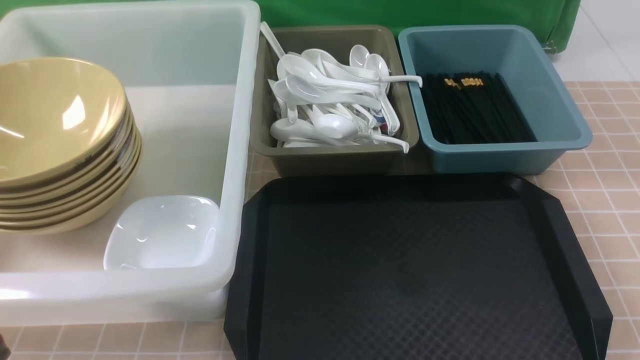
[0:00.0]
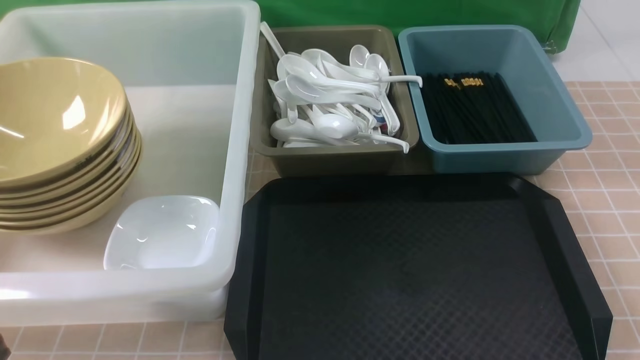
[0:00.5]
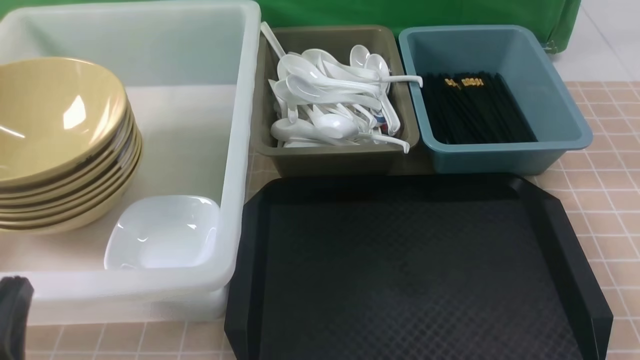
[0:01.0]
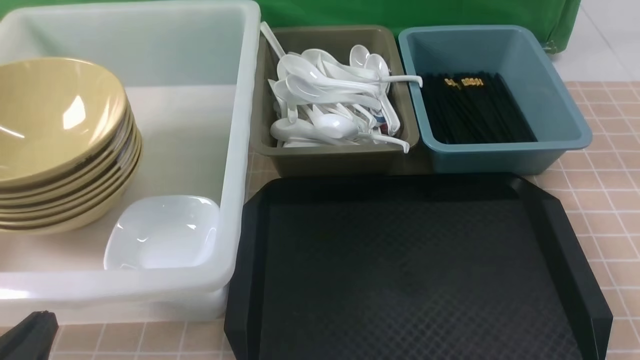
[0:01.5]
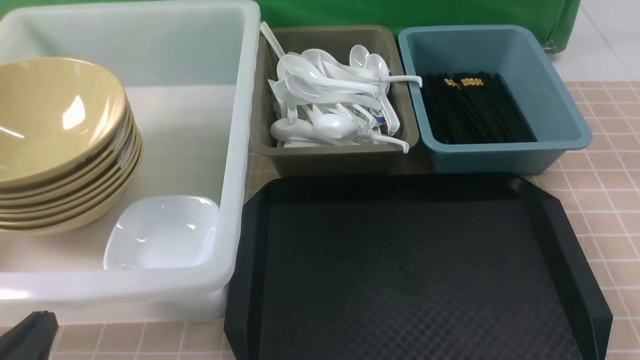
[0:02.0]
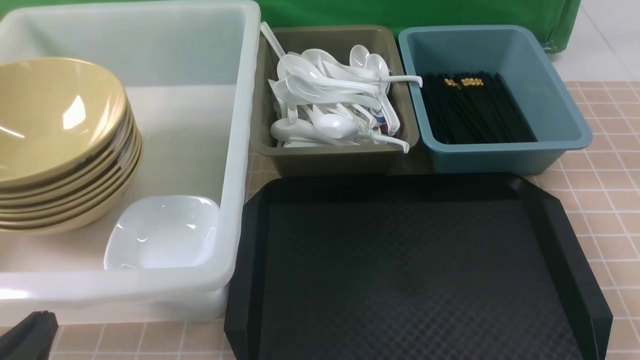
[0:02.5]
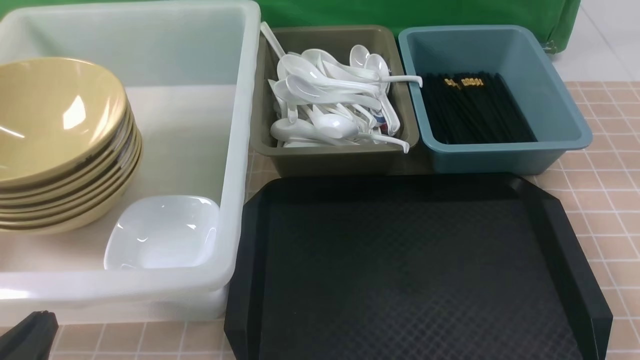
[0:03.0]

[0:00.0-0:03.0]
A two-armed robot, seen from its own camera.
Task of the whole recording: on brown table put chopsticks spoon bowls plates into blue grey white boxes.
0:00.0 to 0:01.5: The left gripper moves downward, about 10 cm.
0:01.5 to 0:03.0: Both grippers stay about where they are.

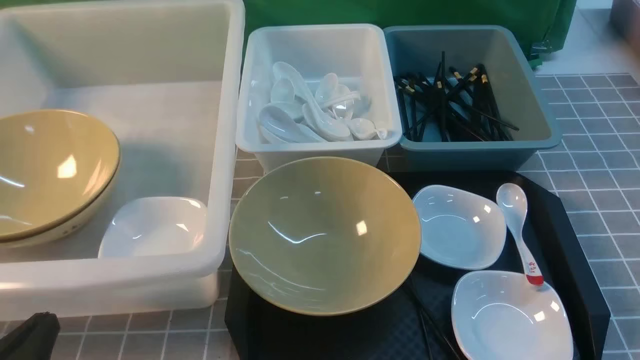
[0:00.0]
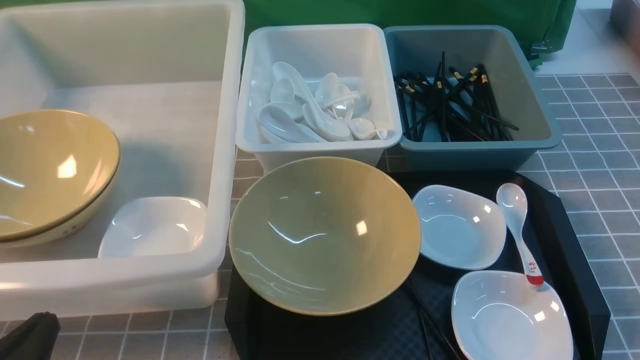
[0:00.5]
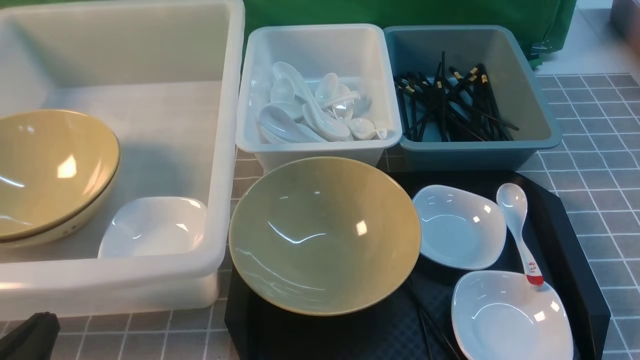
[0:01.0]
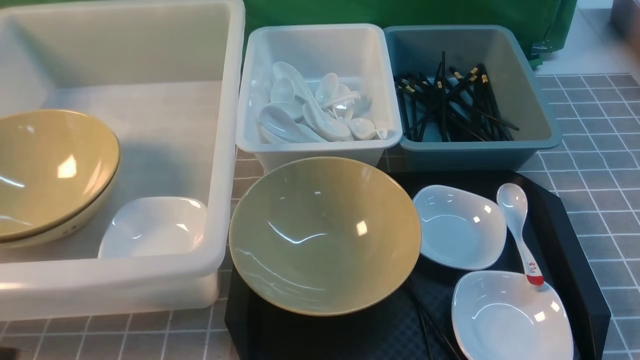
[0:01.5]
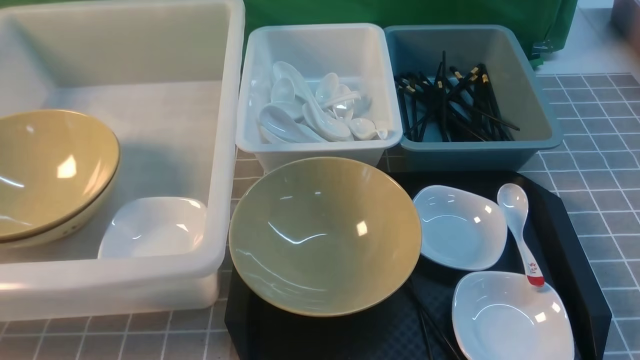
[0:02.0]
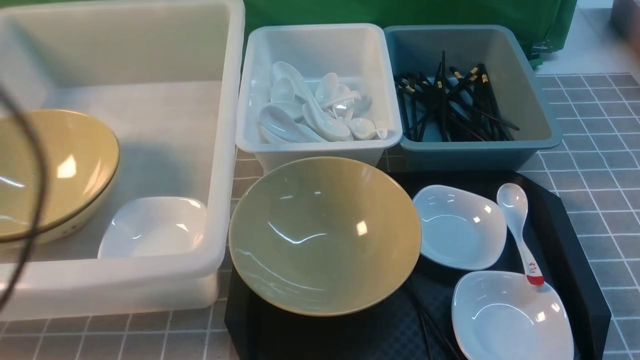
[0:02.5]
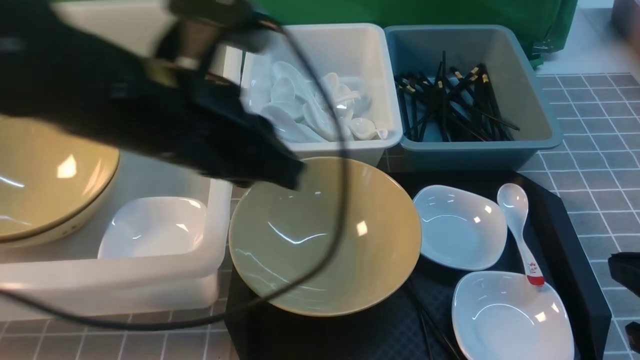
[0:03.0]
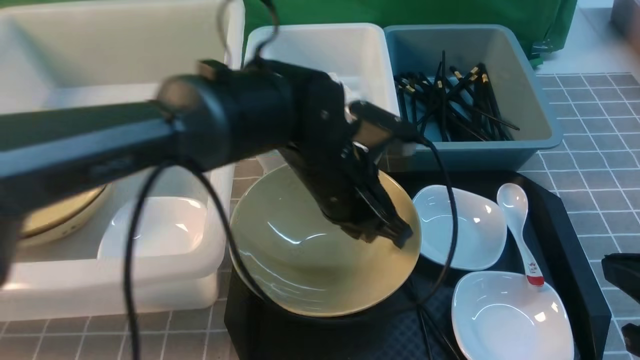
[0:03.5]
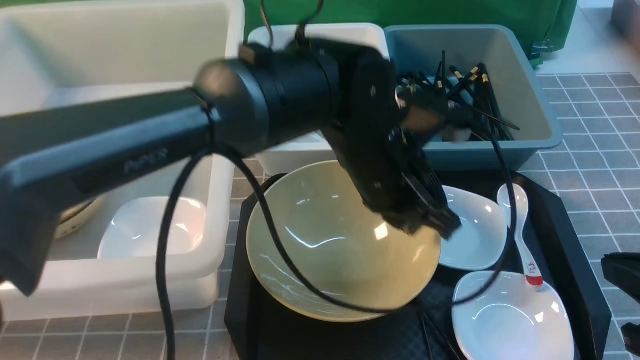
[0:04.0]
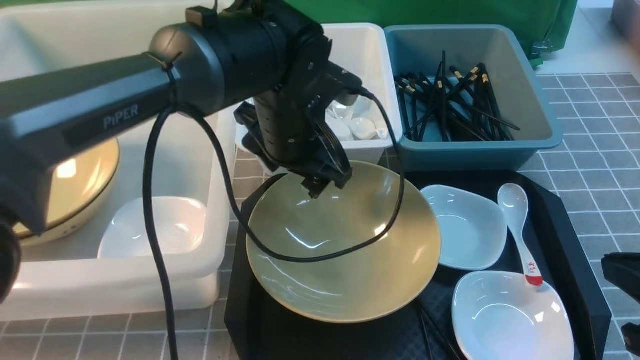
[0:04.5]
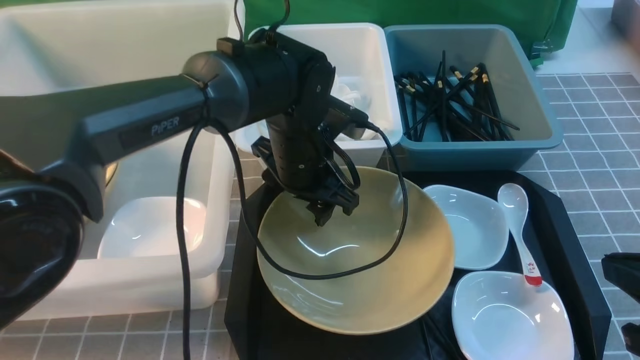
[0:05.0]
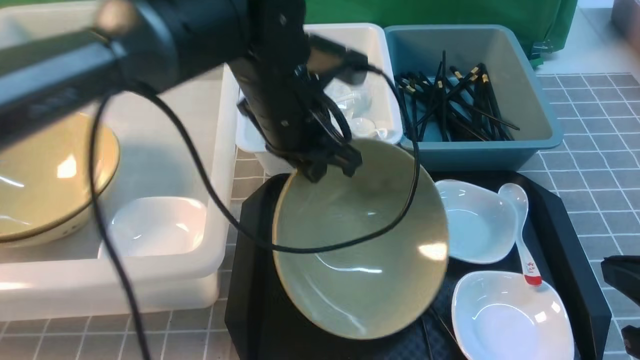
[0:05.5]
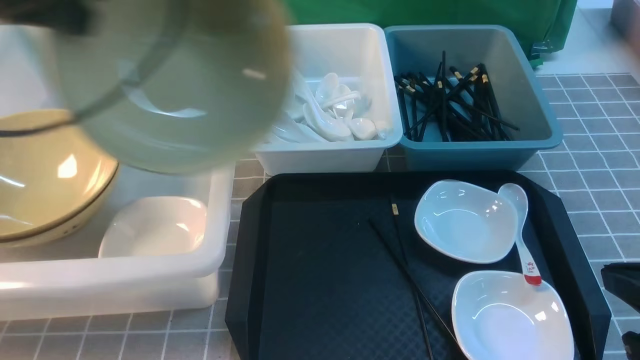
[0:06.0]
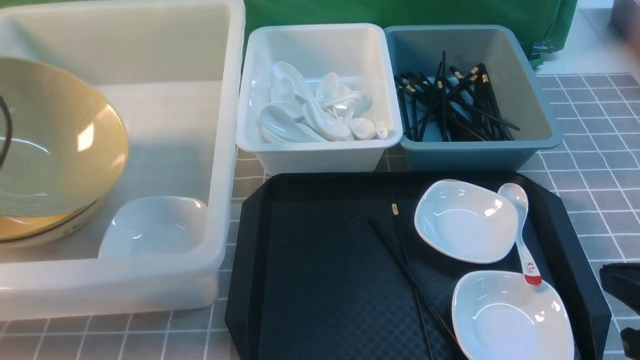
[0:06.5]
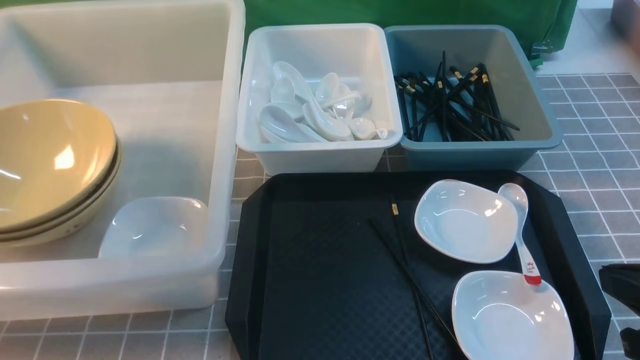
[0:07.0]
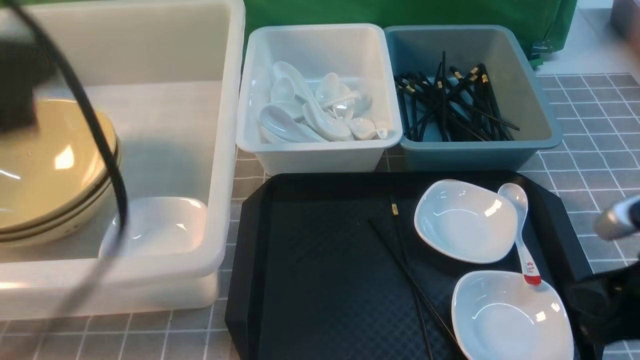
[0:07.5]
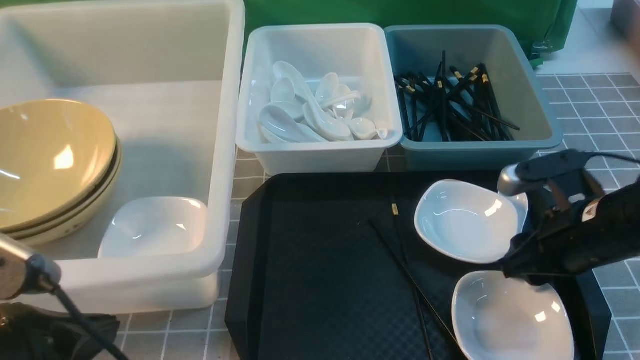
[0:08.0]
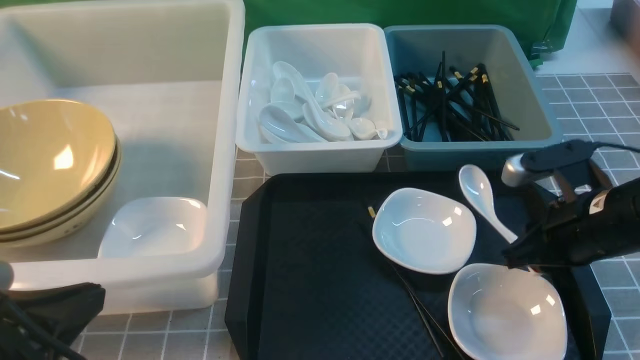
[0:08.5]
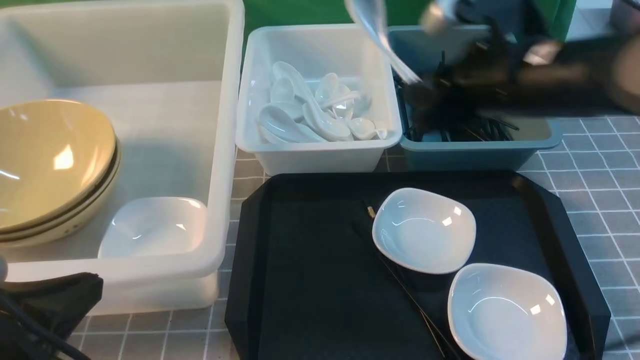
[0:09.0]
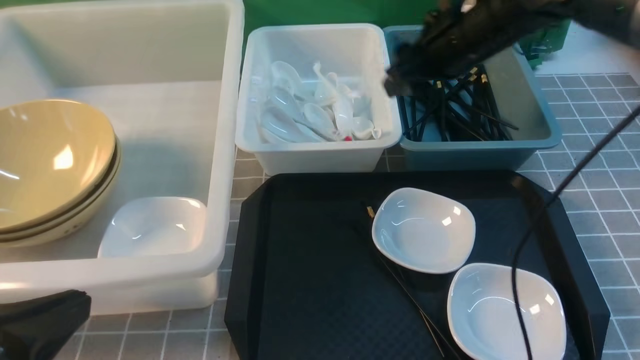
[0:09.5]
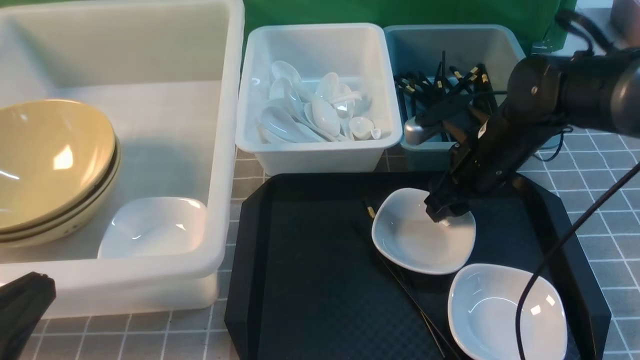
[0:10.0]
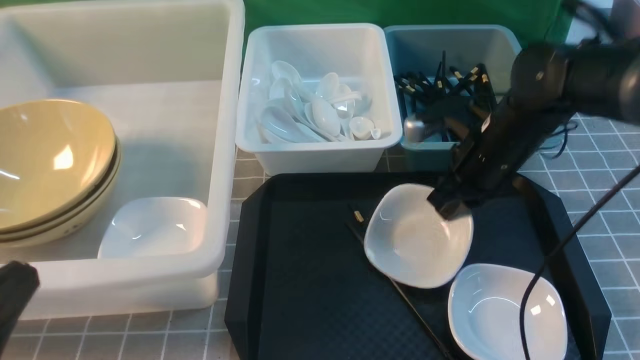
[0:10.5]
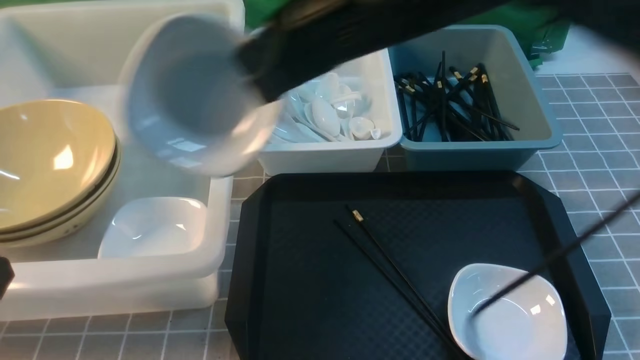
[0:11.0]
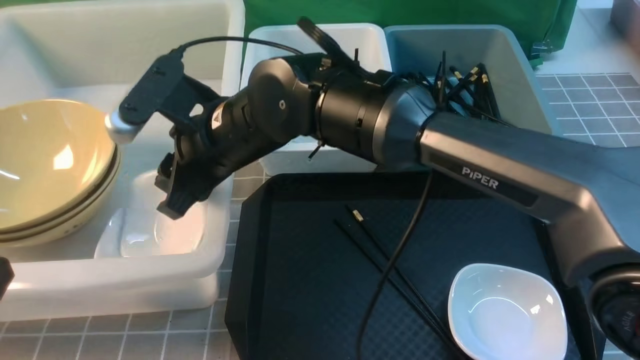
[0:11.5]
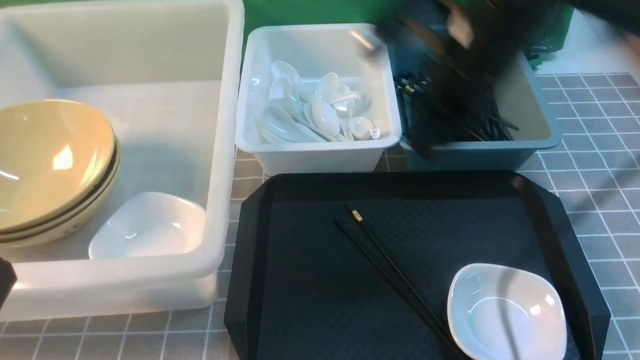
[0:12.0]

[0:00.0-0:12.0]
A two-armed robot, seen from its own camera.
Task of the whole recording: on grey table put chopsticks spoon bowls plates into blue grey white boxes.
Step, 0:00.0 to 0:05.0: use the left arm to grab the yellow noodle bowl on the left.
Step, 0:05.5 to 0:07.0: use the left arm to put the noodle bowl into the large storage box on the left.
Step, 0:07.5 to 0:08.5: use the right arm to grab the soup spoon in the middle.
Step, 0:10.5 to 0:11.5: use the right arm to put the plate into the large storage box on the left.
0:00.0 to 0:02.0: The left gripper travels upward by about 15 cm.
0:02.0 to 0:04.0: The left gripper is displaced to the right and forward by approximately 40 cm; the right gripper travels forward by approximately 10 cm.
0:04.0 to 0:06.0: The left gripper is displaced to the left and upward by approximately 35 cm, and opens and closes again.
0:06.0 to 0:08.0: The right gripper shifts approximately 15 cm forward and downward, and opens. The left gripper is displaced backward and downward by roughly 25 cm, and opens and closes again.
0:08.0 to 0:10.0: The left gripper ends up approximately 5 cm from where it was. Meanwhile the right gripper goes some 15 cm forward and to the left.
0:10.0 to 0:12.0: The right gripper heads upward, covering some 10 cm, moves approximately 25 cm to the left and comes back, and closes, then opens again.

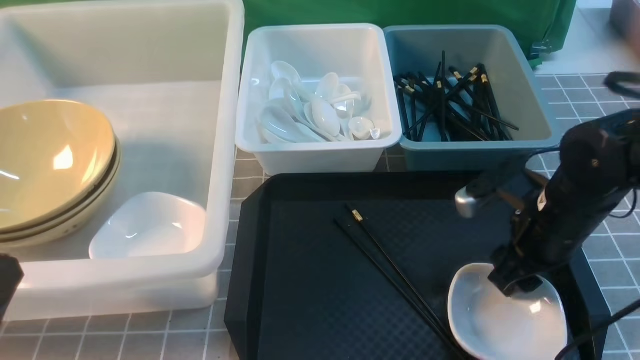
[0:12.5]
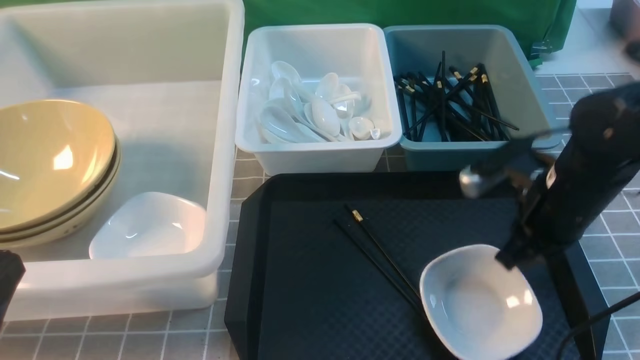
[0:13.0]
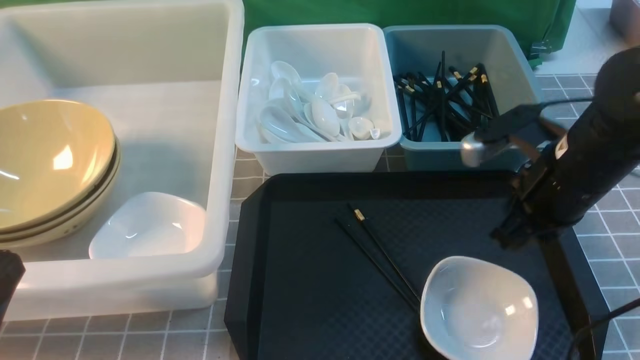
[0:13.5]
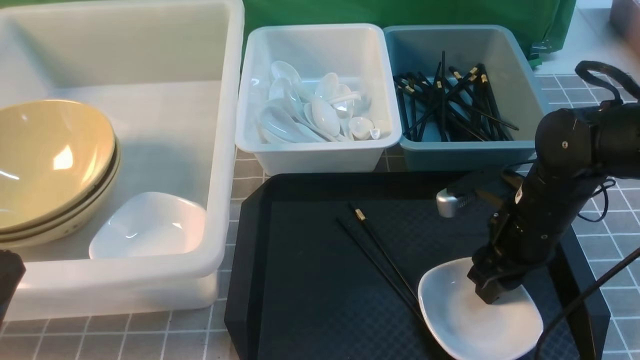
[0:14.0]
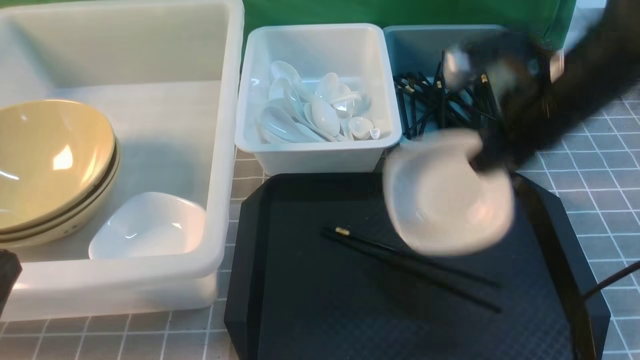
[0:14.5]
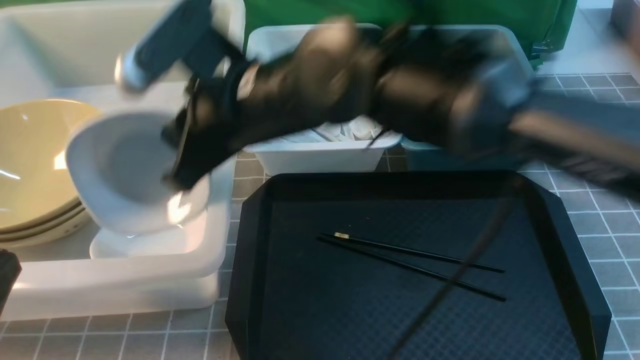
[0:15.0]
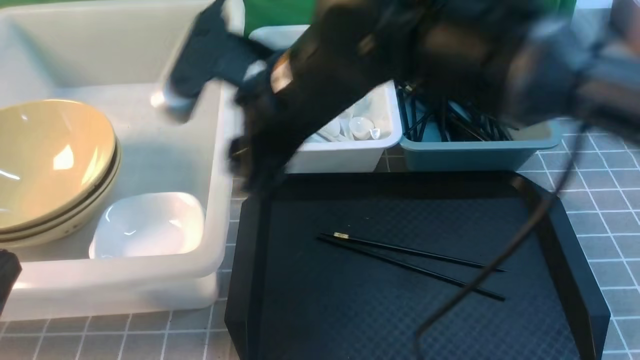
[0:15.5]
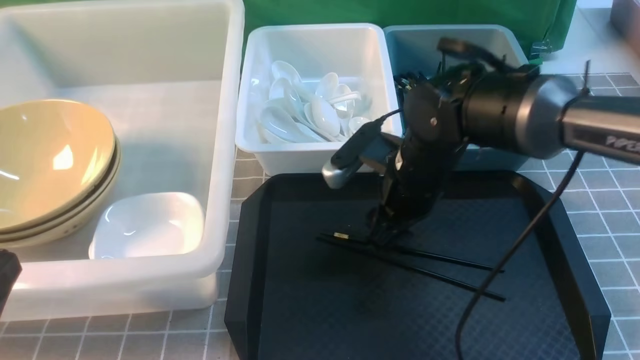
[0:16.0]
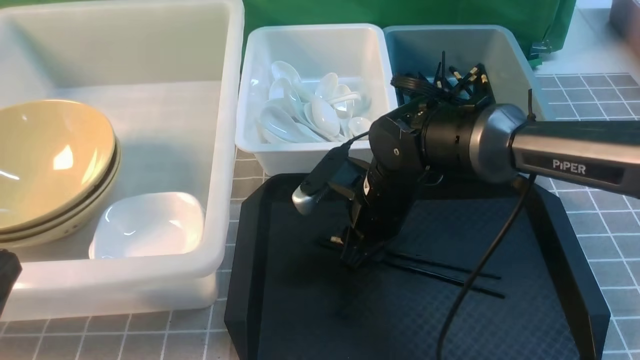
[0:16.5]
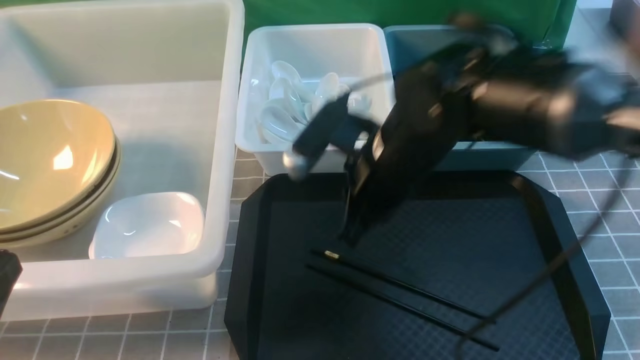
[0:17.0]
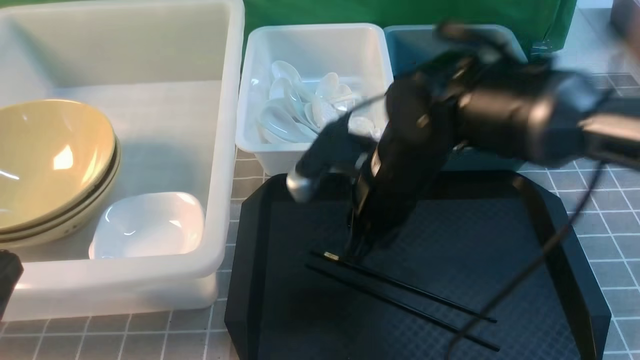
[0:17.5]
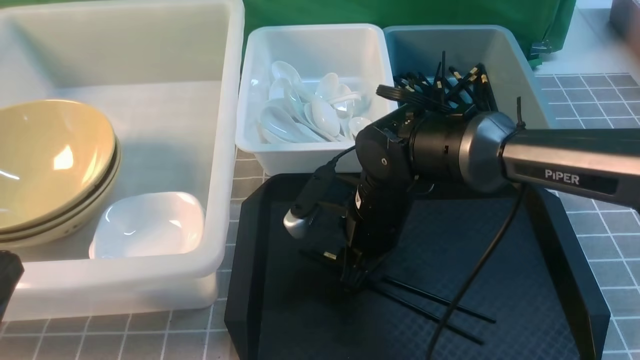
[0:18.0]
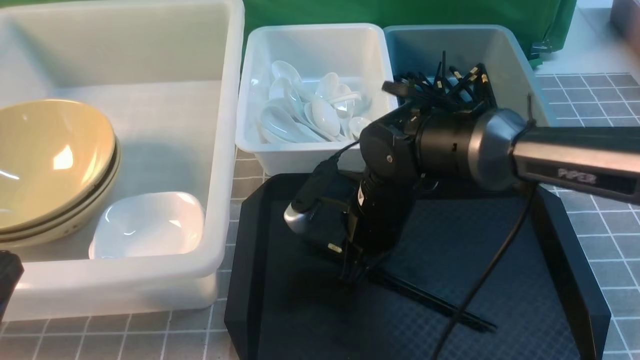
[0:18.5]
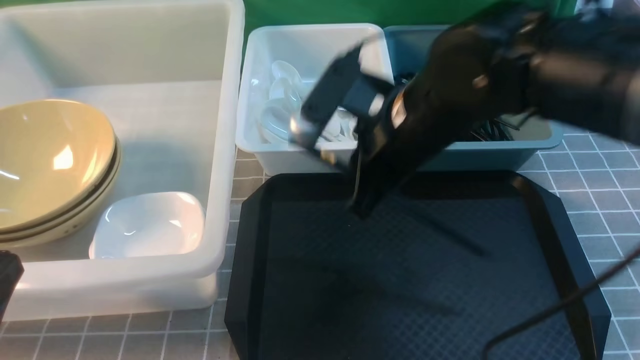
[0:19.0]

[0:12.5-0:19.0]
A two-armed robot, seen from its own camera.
Task of the whole recording: on grey table put chopsticks spoon bowls plates into blue grey white boxes.
Step, 0:12.5 to 0:14.0: use the right arm to grab the plate.
Step, 0:14.5 to 0:15.0: use the right arm to put the plate into the large storage box on the left.
Step, 0:16.0 to 0:18.5: use the right arm to grab the chopsticks.
0:12.5 to 0:14.5: The right gripper swings up and down, about 15 cm each way, with 2 reversals, and closes its fingers.
0:14.5 to 0:17.0: The right gripper is displaced to the left and downward by approximately 10 cm, and opens and closes again.
0:17.0 to 0:19.0: The right gripper moves upward, roughly 5 cm, and opens, then closes once more.
